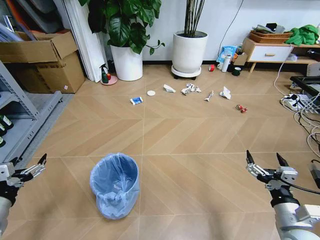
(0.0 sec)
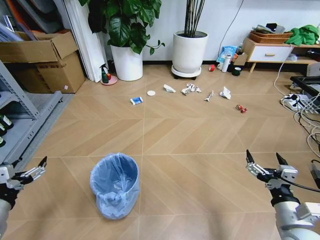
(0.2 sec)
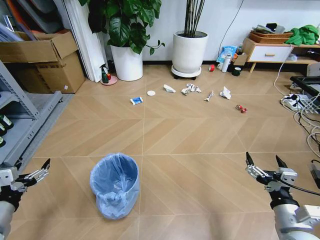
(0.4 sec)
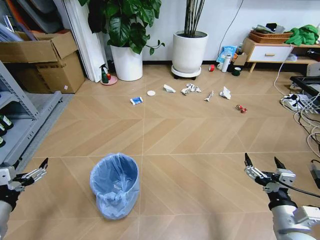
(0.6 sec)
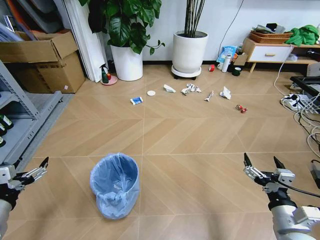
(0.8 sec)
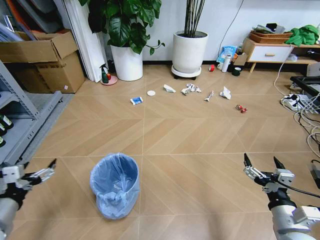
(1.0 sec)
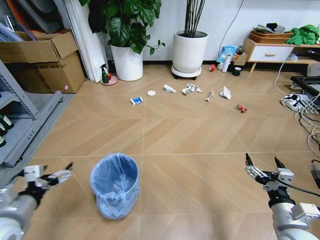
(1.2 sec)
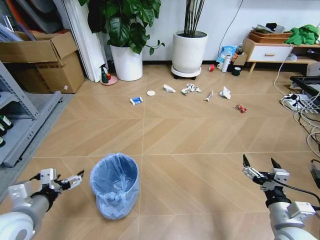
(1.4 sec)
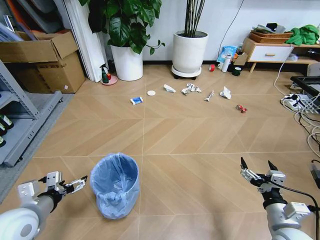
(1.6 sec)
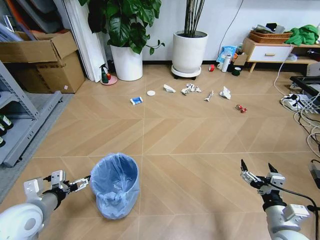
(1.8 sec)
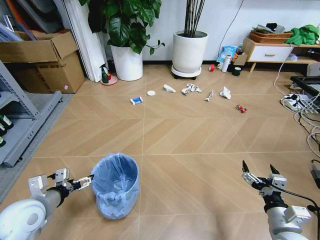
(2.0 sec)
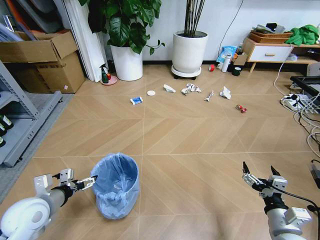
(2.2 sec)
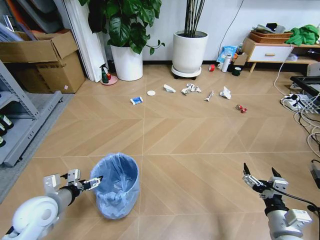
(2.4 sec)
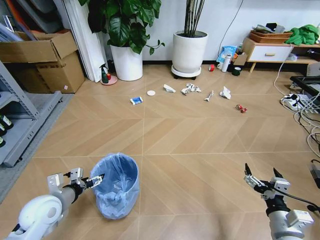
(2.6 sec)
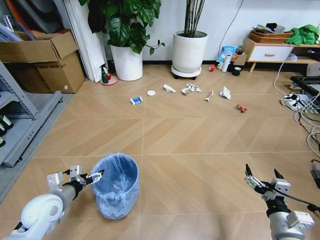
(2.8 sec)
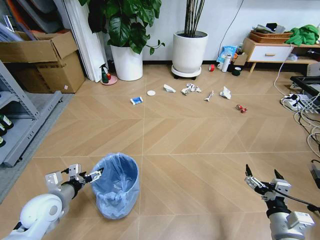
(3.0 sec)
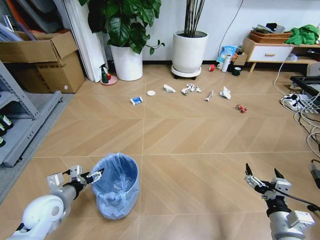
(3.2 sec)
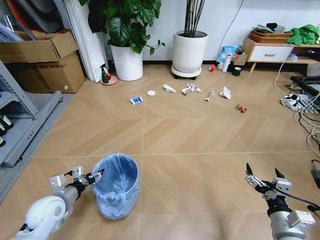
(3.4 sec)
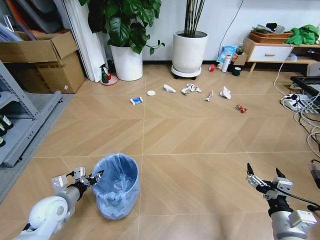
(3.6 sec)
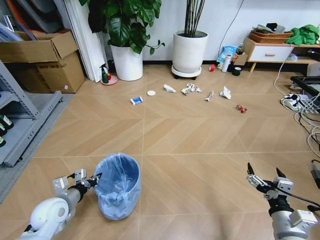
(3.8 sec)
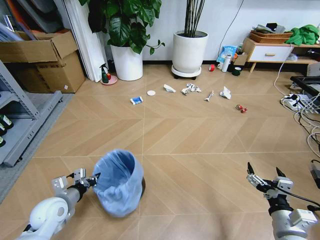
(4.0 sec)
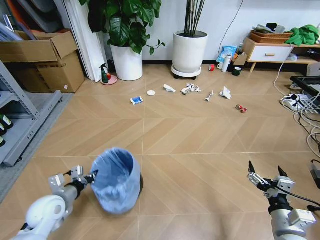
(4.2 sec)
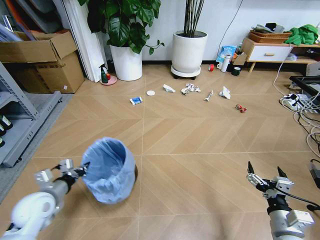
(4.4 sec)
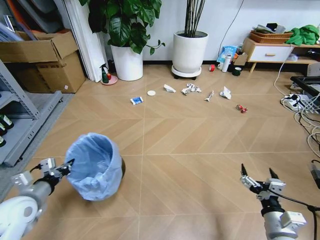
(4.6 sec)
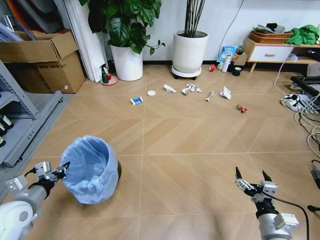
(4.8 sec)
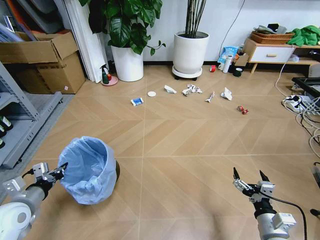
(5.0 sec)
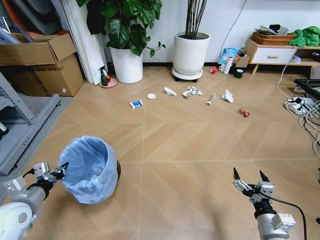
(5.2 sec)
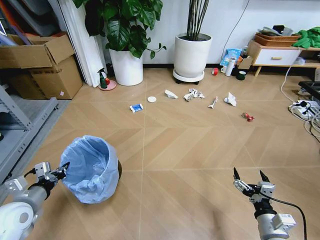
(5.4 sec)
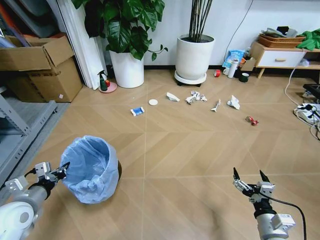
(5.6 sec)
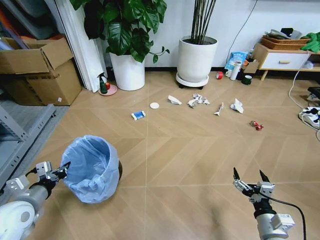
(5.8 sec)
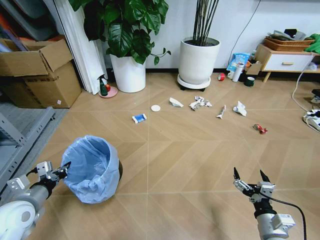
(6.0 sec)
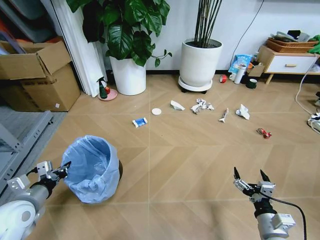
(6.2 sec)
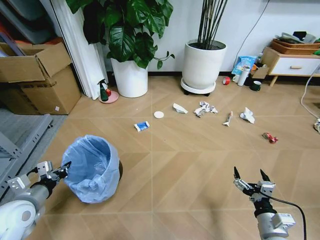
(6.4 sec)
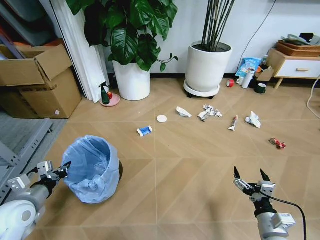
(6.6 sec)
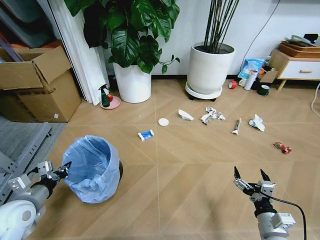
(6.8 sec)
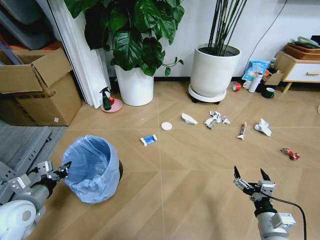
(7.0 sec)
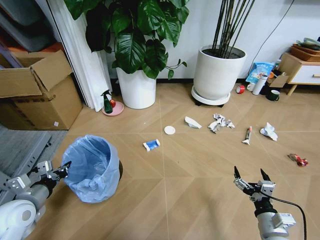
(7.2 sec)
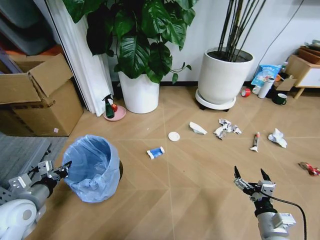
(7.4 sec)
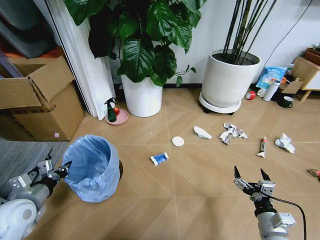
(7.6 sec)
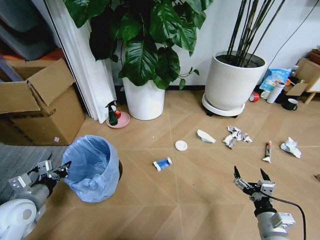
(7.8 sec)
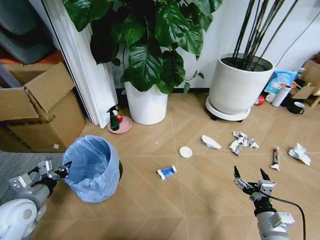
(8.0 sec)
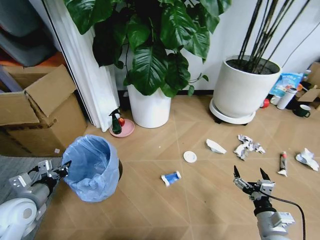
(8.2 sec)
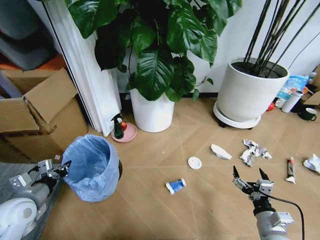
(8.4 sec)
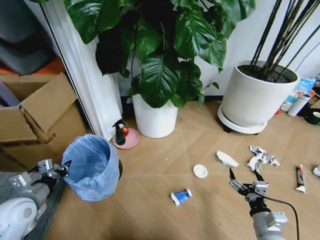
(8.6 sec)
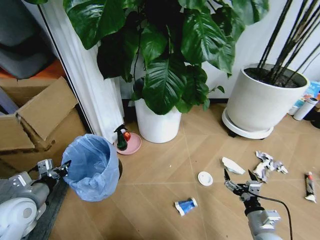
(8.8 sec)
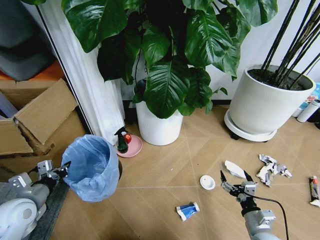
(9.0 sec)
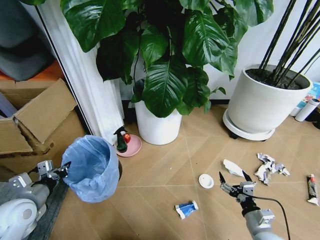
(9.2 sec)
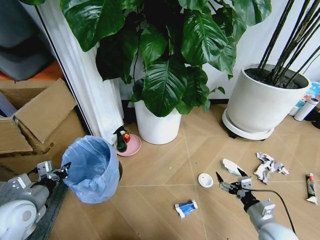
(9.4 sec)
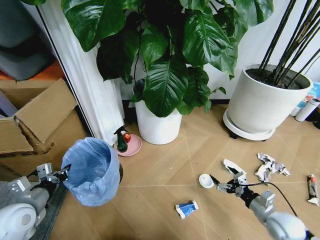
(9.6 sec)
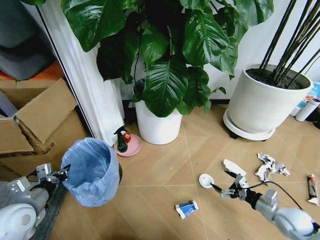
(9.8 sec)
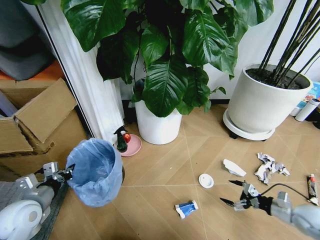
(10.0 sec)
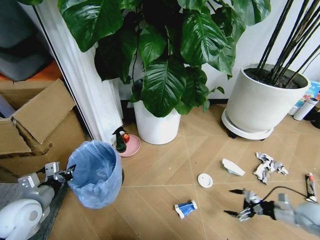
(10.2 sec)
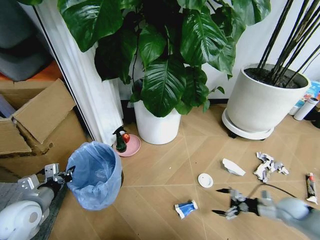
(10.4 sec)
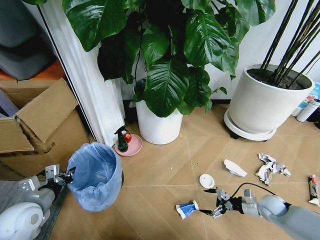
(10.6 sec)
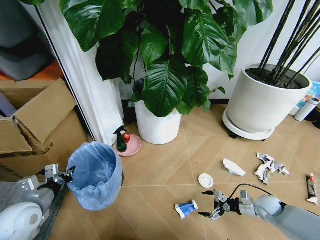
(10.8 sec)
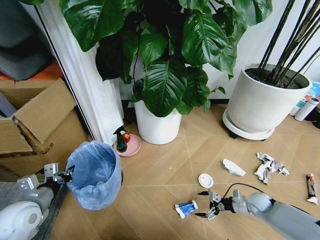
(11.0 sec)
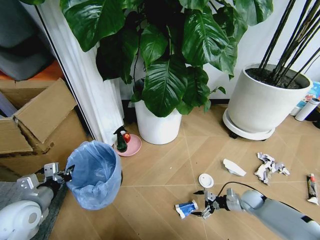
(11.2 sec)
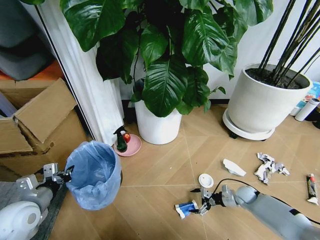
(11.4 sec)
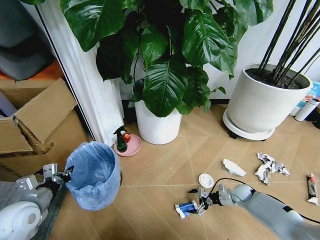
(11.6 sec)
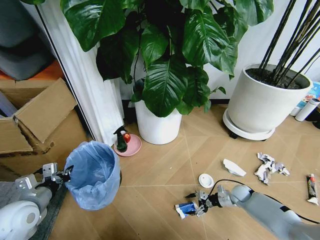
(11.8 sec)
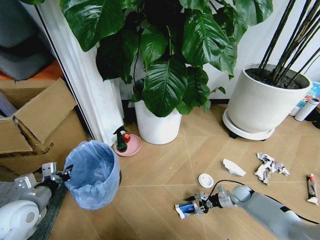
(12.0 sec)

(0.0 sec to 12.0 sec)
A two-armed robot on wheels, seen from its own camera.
Task of the whole recording: Pick up the trash bin and place the garbage on the floor into it.
1.6 sec - 3.0 sec: The left gripper goes roughly 10 cm downward and forward.
3.0 sec - 4.4 sec: The left gripper closes up.
9.0 sec - 10.4 sec: The right gripper is displaced to the right and forward by roughly 20 cm.
10.4 sec - 12.0 sec: The right gripper shifts approximately 15 cm downward, forward and to the left, and closes up.

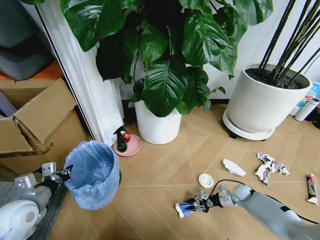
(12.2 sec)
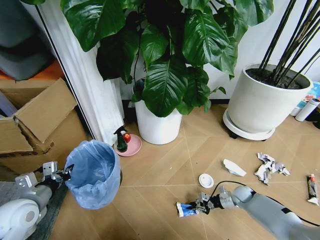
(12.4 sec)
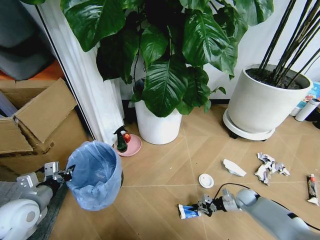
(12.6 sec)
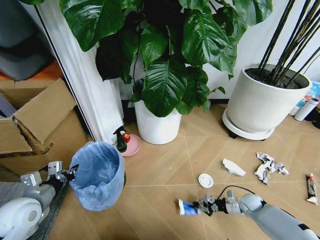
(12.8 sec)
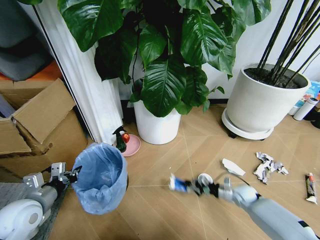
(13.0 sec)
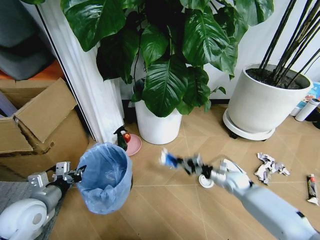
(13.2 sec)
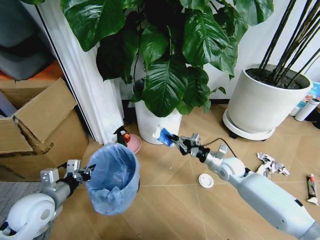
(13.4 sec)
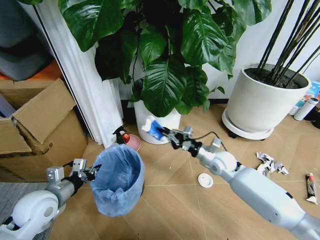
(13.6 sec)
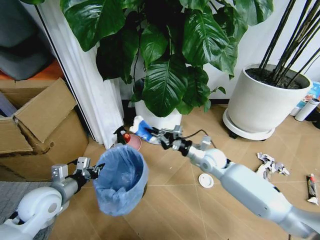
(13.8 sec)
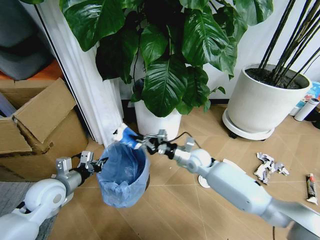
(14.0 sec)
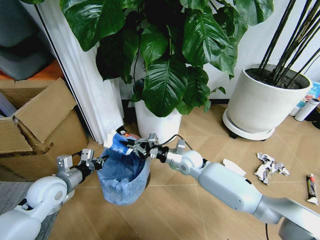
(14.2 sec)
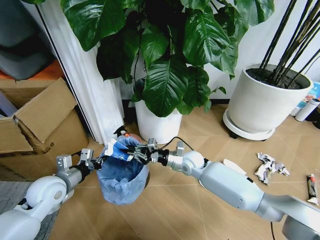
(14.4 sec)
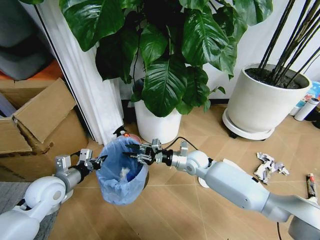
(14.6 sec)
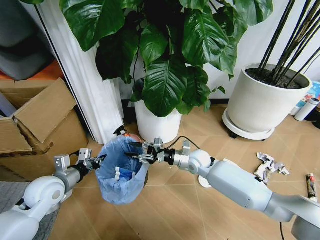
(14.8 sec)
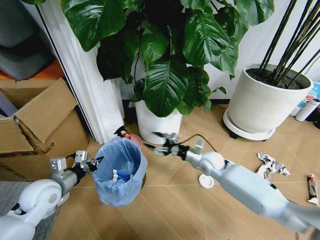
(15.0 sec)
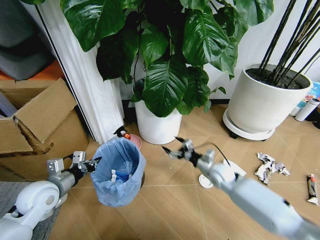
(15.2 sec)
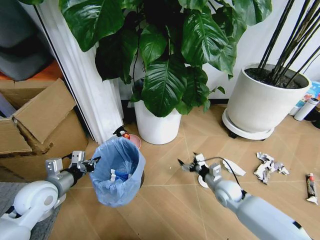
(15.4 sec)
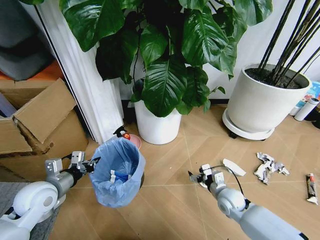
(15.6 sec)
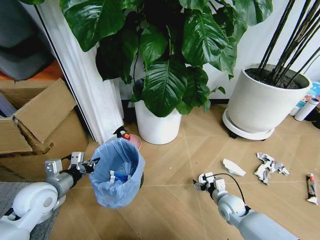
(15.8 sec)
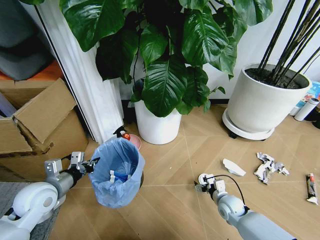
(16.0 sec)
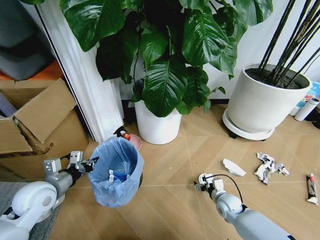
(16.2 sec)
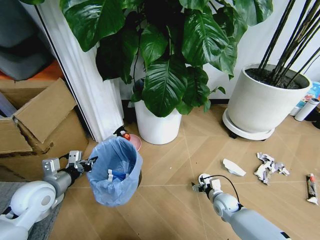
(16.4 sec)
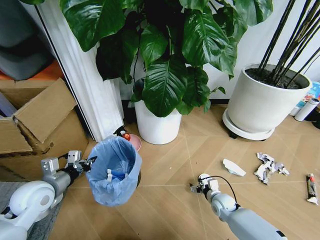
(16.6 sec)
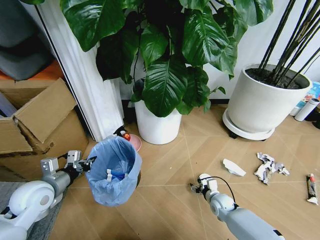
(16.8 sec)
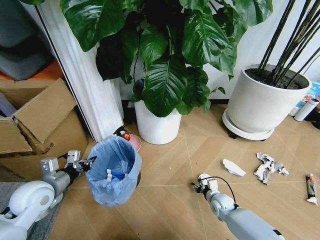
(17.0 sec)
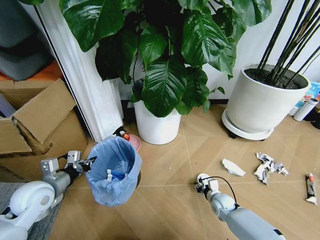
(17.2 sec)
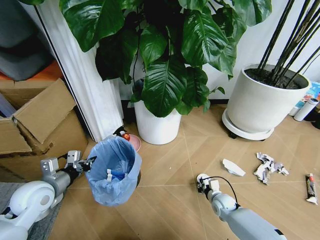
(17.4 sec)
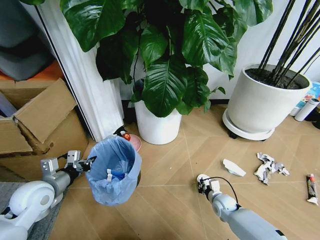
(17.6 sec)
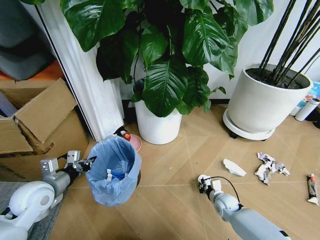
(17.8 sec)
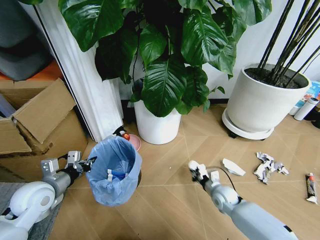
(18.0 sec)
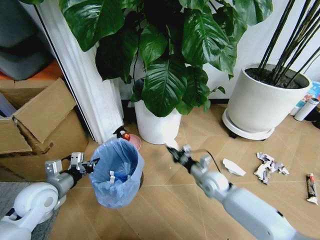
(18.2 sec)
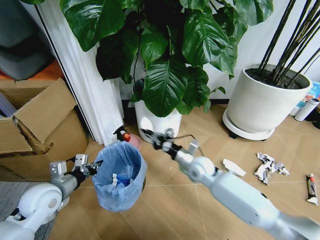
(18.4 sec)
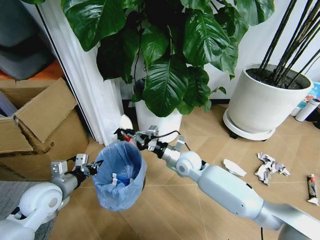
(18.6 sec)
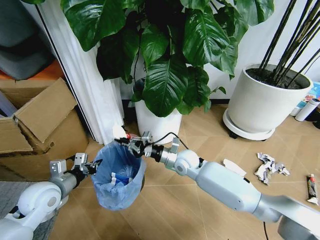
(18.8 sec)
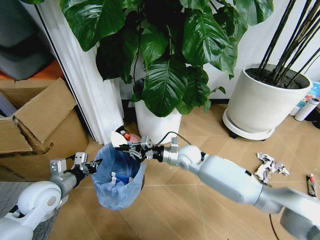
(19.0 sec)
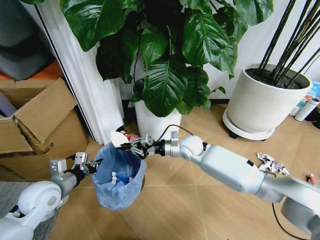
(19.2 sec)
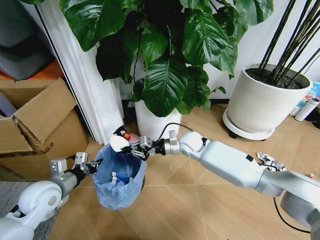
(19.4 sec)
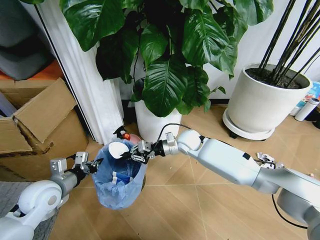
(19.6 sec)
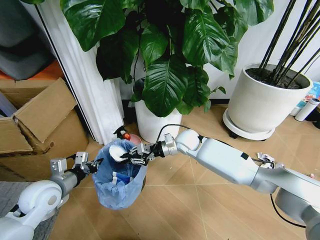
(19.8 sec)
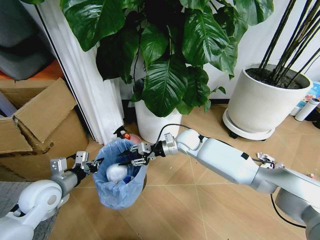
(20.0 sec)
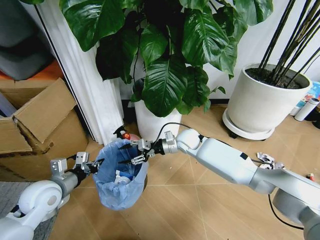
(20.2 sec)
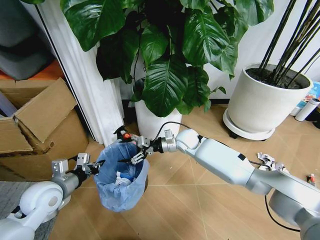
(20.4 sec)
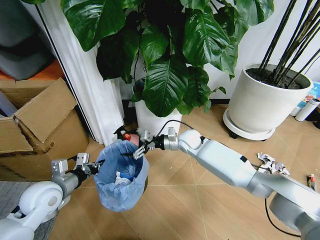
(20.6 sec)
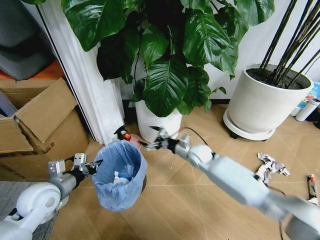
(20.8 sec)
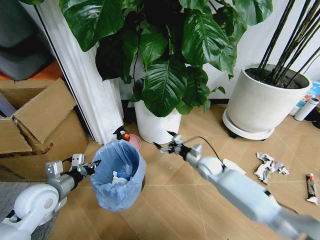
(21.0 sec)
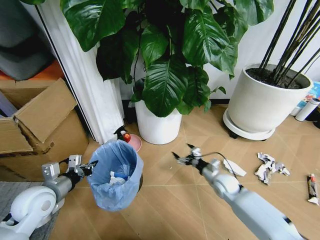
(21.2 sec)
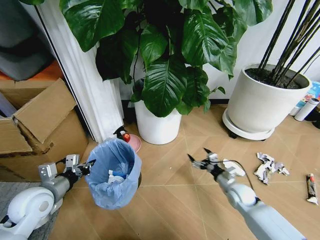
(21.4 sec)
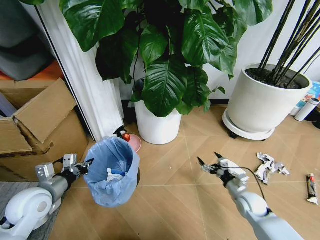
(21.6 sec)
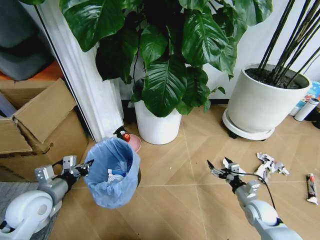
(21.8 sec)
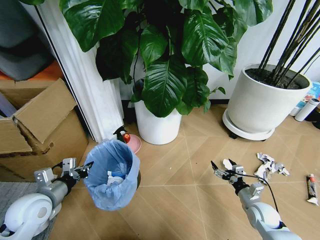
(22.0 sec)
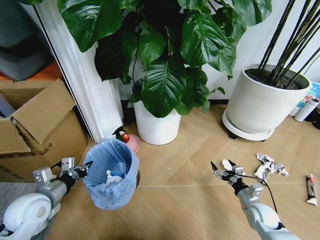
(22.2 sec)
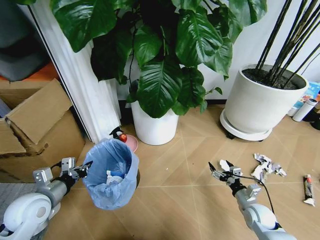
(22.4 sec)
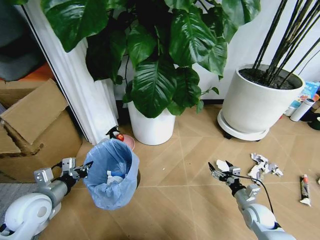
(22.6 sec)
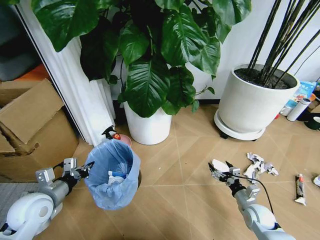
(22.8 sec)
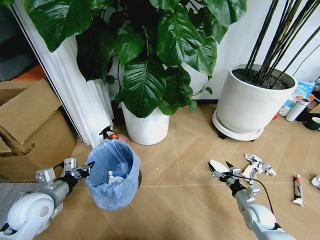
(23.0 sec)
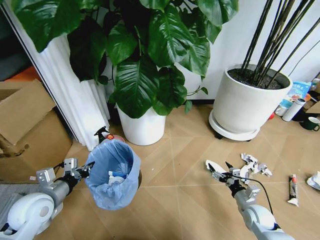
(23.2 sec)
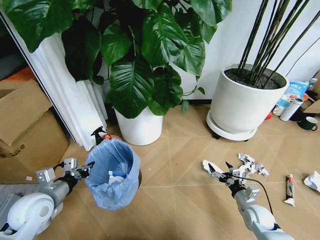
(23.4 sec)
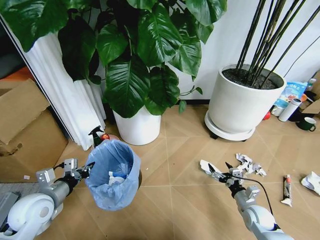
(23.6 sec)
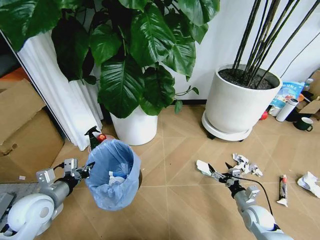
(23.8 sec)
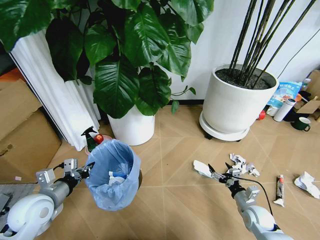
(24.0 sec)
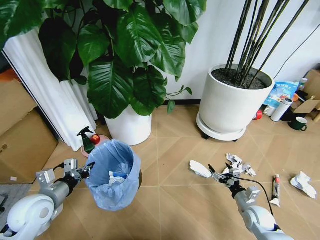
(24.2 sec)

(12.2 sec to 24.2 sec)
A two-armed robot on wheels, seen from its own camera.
Task of the whole recording: Pick up the trash bin and place the garbage on the floor into it.
12.2 sec - 13.8 sec: The left gripper heads to the right, covering approximately 5 cm. The right gripper is displaced upward and to the left by some 30 cm.
13.8 sec - 15.2 sec: The right gripper is displaced downward and to the right by approximately 10 cm, and opens its fingers.
15.2 sec - 16.6 sec: The right gripper heads downward and backward, covering about 15 cm.
16.6 sec - 18.2 sec: The right gripper moves upward and to the left, about 15 cm, and closes its fingers.
18.2 sec - 19.8 sec: The right gripper moves forward, upward and to the left, about 20 cm.
19.8 sec - 21.2 sec: The right gripper heads to the right, downward and backward, covering approximately 25 cm, and opens.
21.2 sec - 22.6 sec: The right gripper is displaced backward and to the right by roughly 15 cm.
